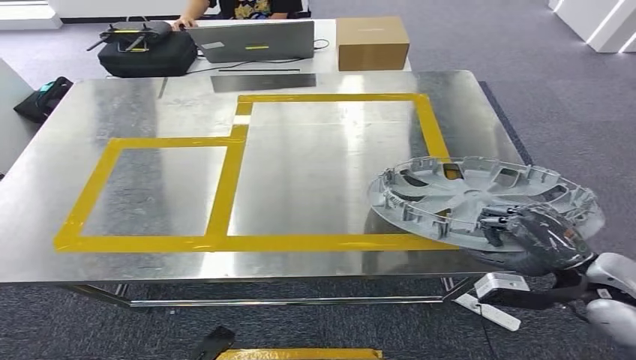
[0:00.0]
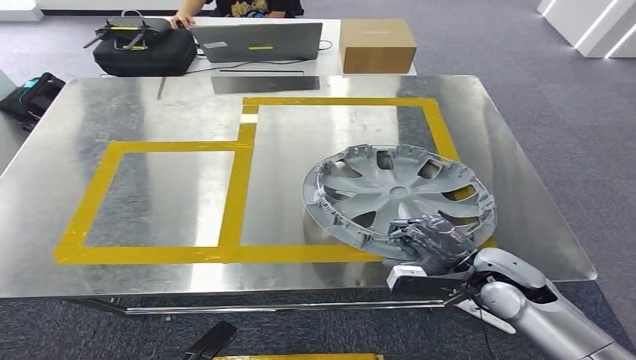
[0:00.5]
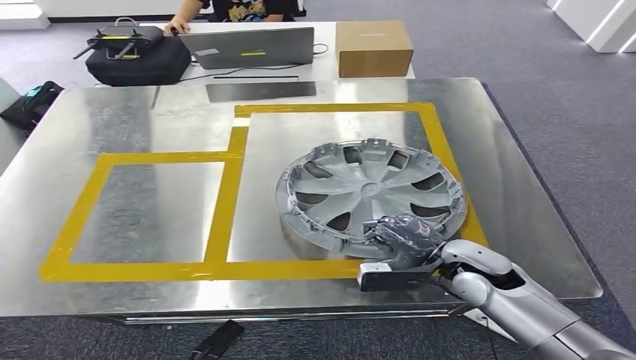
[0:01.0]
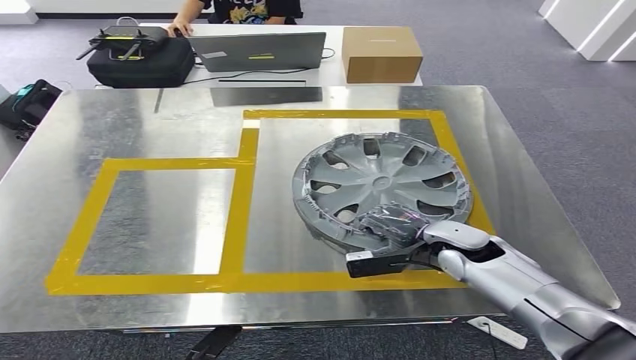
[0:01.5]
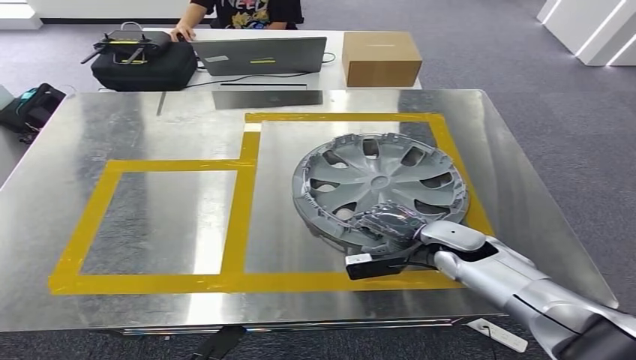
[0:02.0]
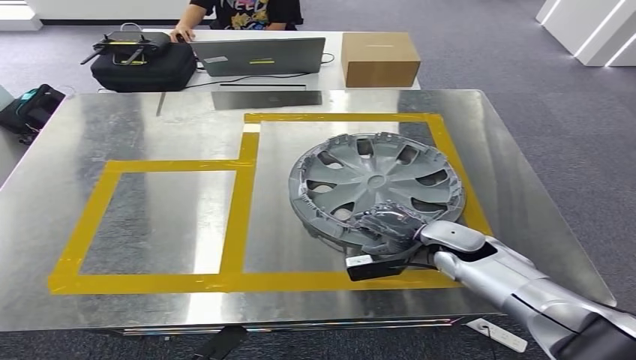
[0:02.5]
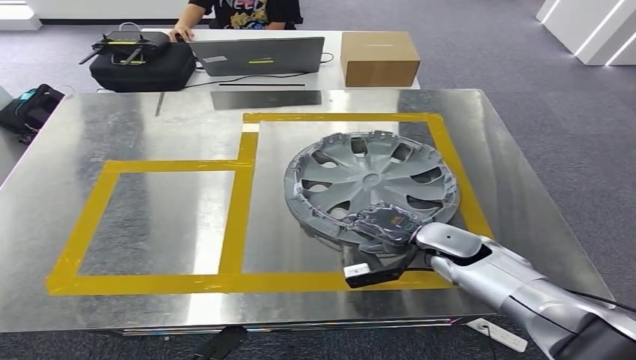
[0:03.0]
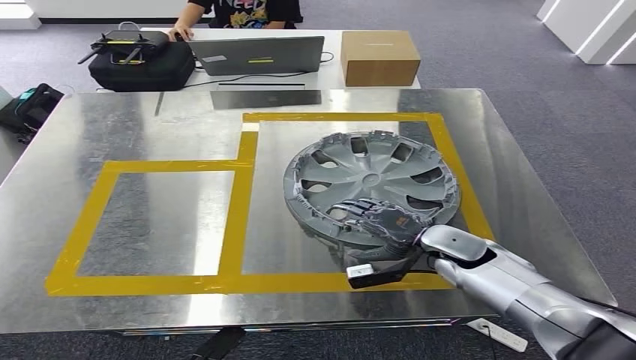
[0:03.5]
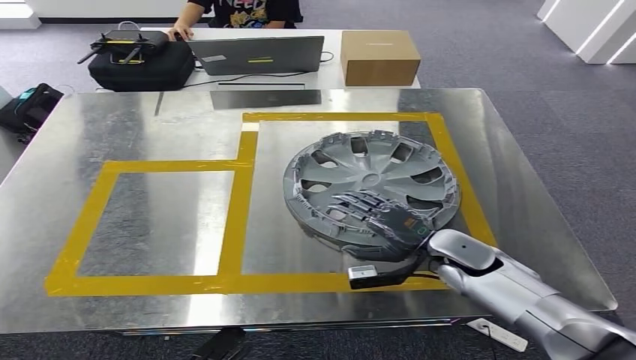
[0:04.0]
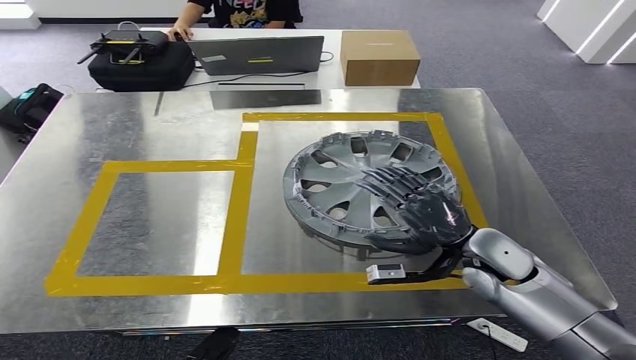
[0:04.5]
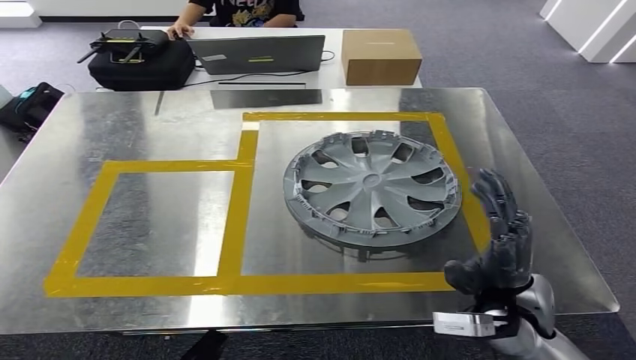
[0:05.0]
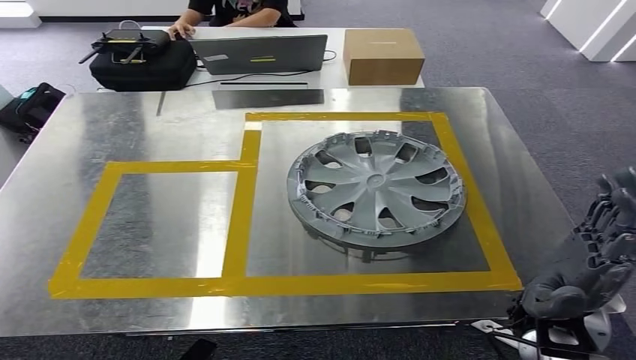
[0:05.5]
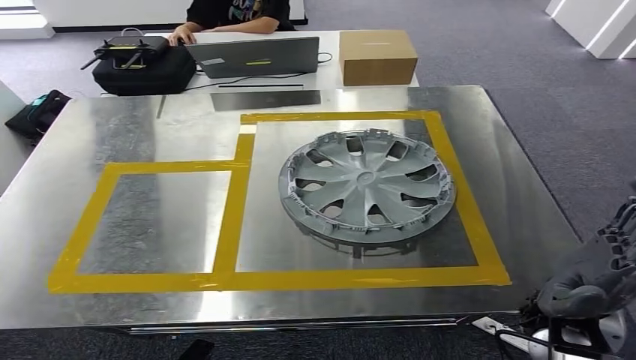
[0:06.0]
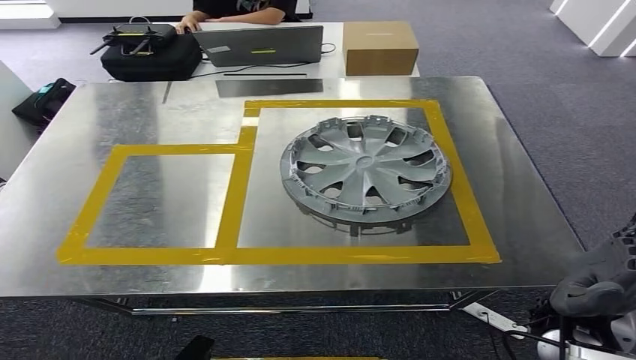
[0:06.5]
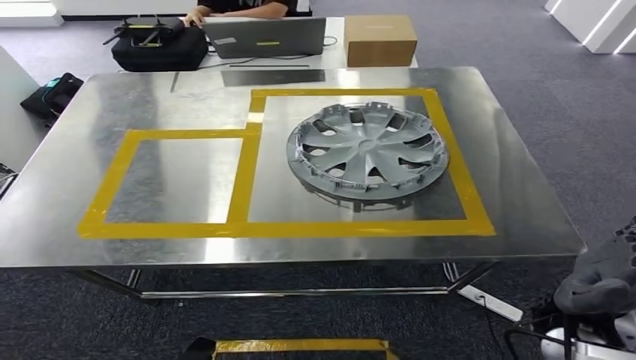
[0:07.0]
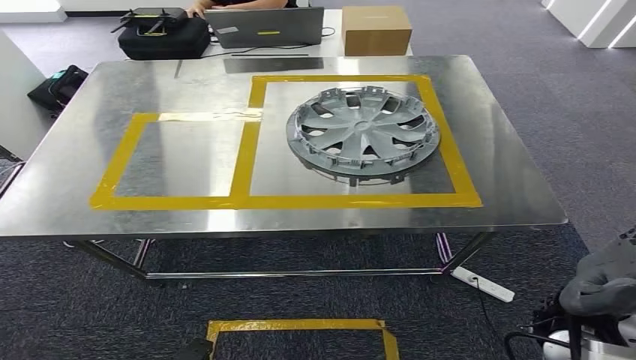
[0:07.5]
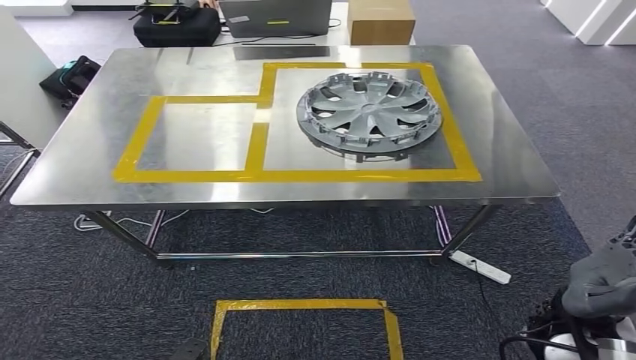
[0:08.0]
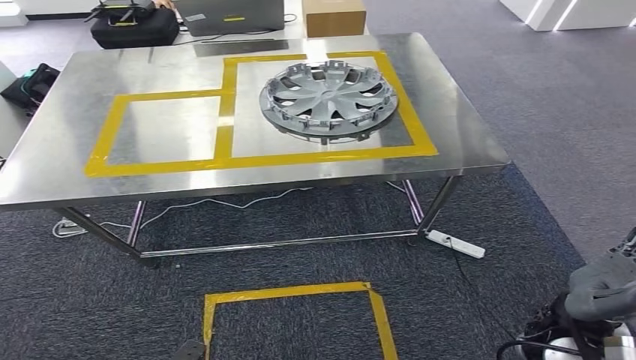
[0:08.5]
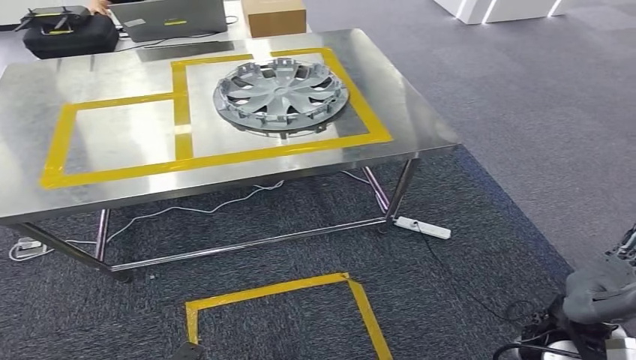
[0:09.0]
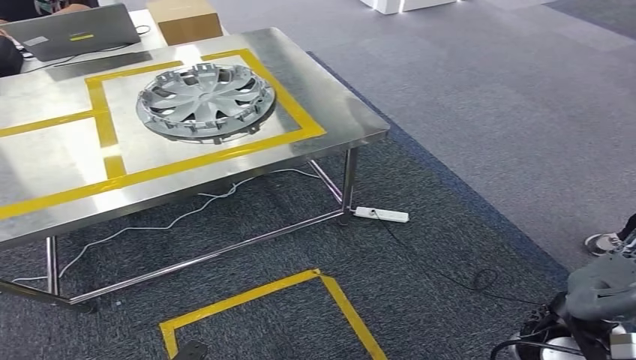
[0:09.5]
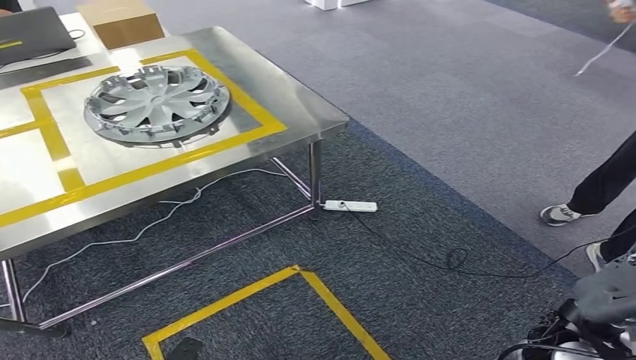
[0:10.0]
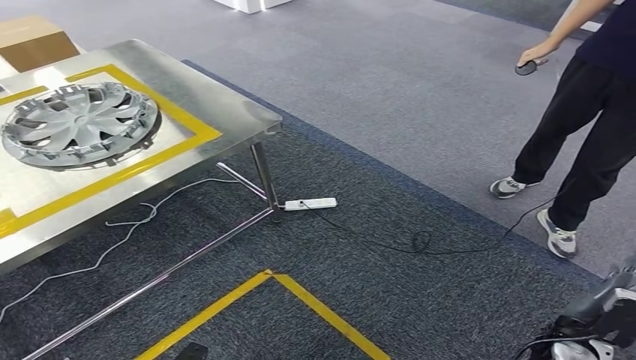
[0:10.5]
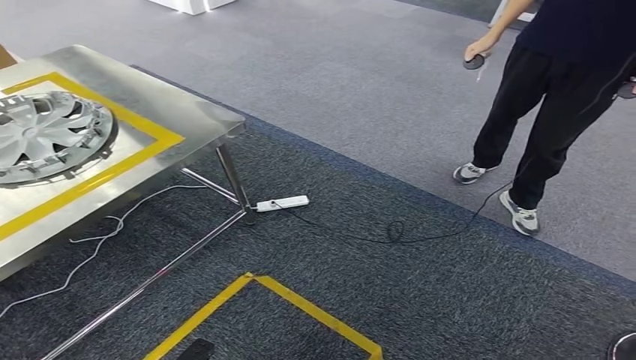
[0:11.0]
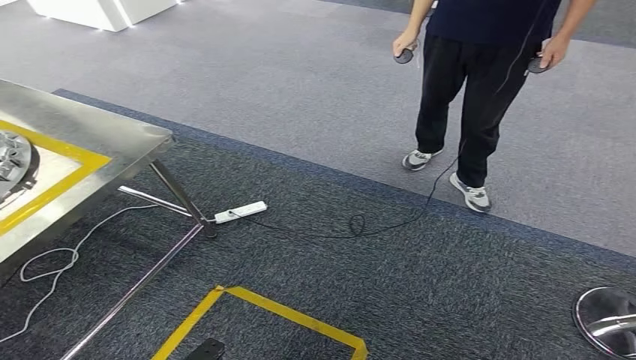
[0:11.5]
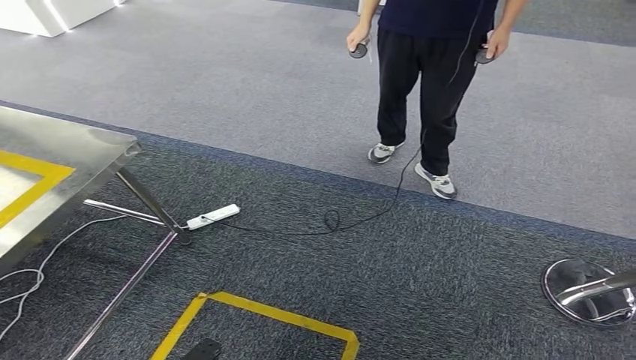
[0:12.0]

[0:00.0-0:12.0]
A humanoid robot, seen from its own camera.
Step, 0:00.0 to 0:05.0: Insert the small component into the corresponding slot on the workbench.
0:02.0 to 0:04.0: The hands make only small movements.

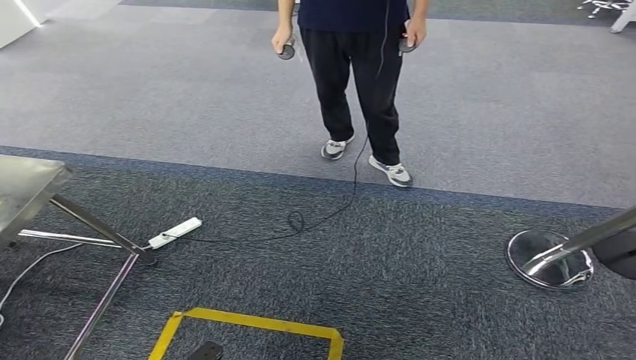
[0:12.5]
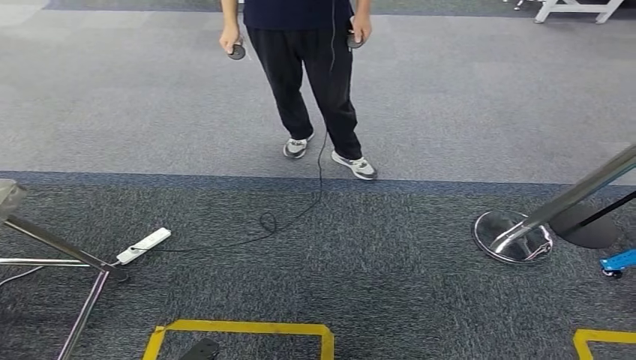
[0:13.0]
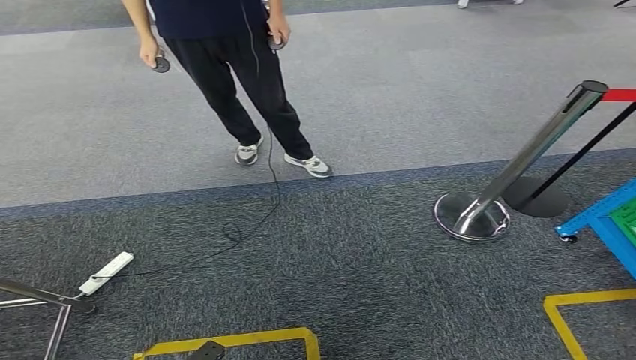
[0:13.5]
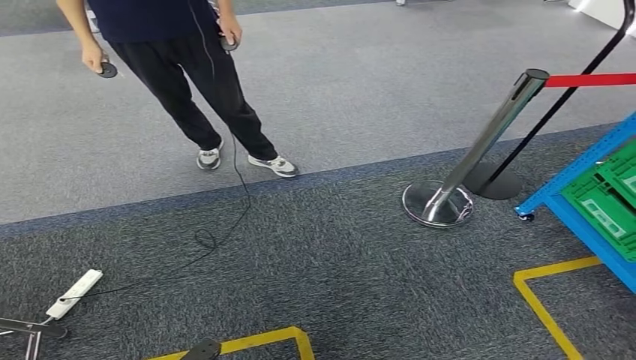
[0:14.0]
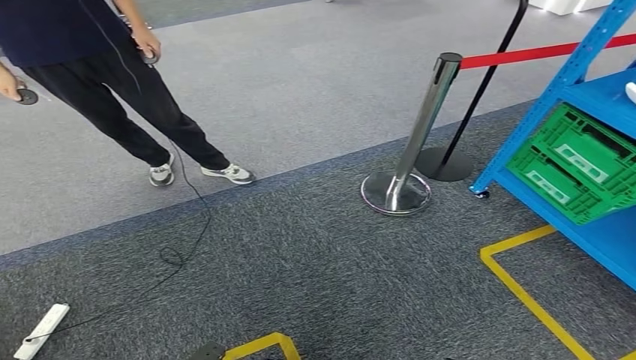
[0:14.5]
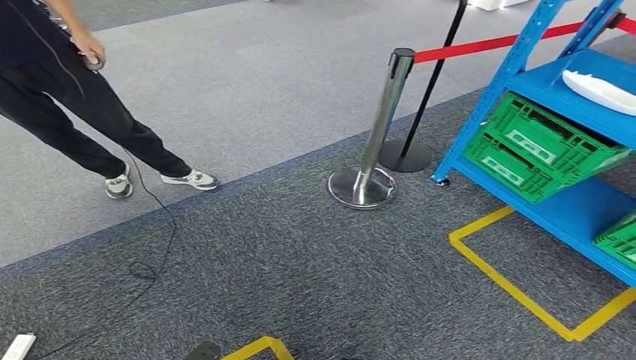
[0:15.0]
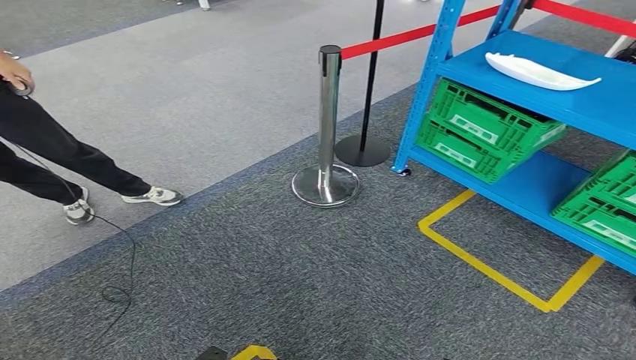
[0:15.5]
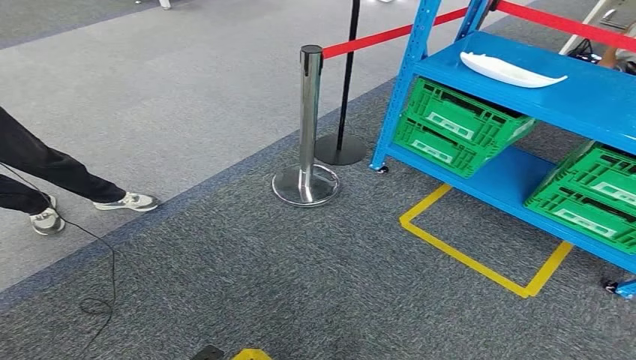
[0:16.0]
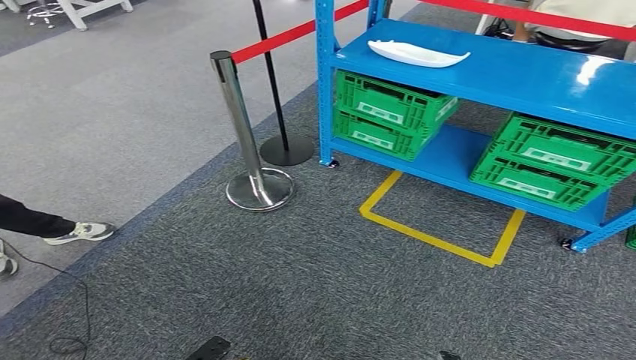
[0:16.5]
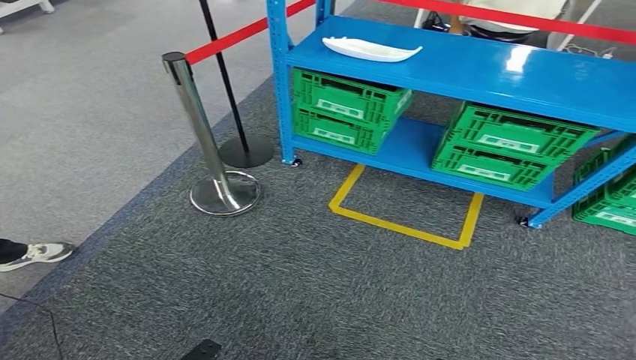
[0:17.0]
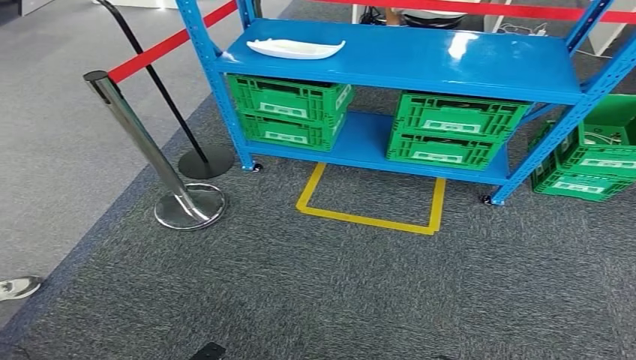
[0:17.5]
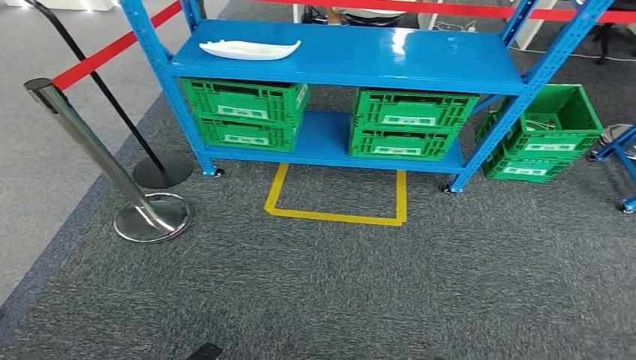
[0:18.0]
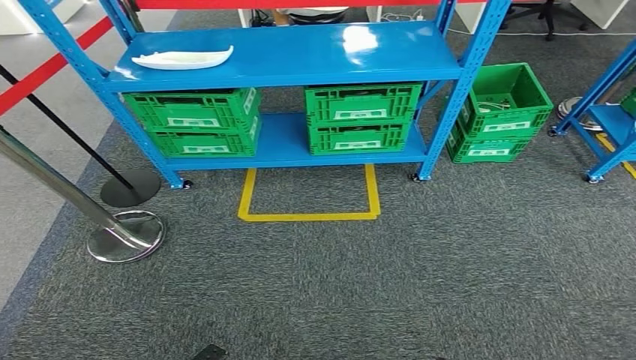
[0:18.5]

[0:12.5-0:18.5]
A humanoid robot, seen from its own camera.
Step, 0:12.5 to 0:18.5: Move to the initial position at the workbench.
